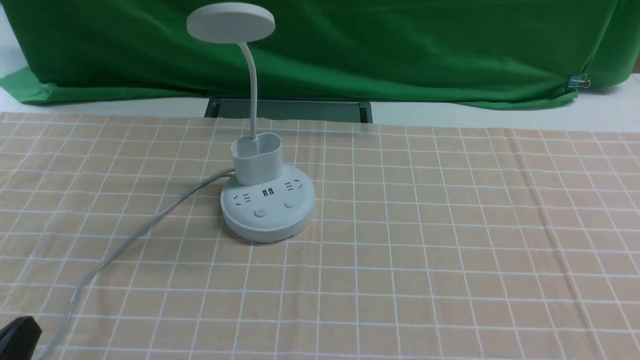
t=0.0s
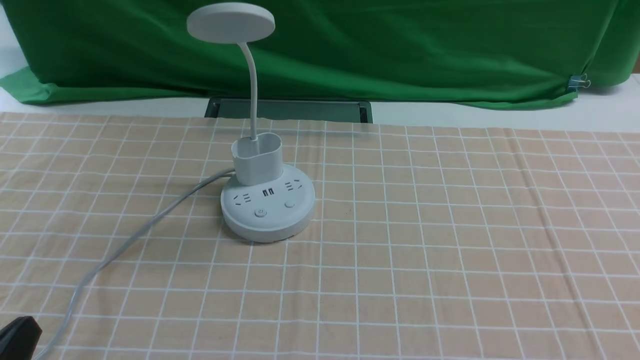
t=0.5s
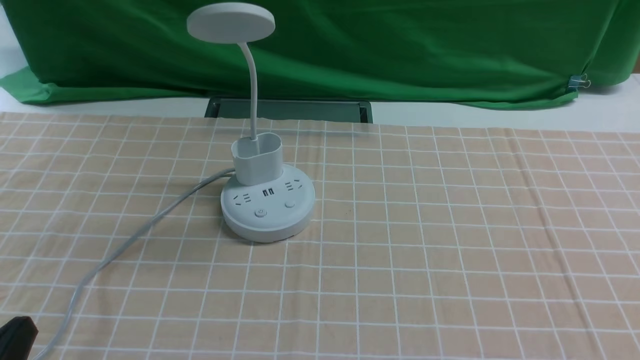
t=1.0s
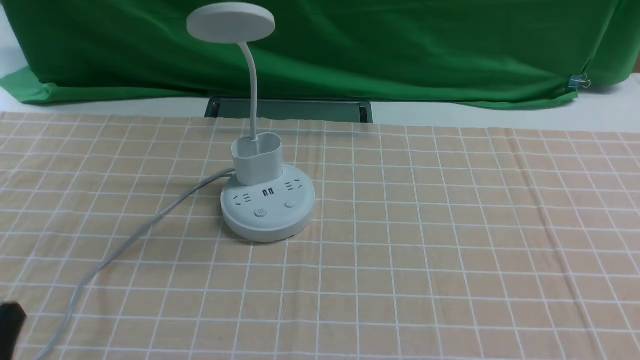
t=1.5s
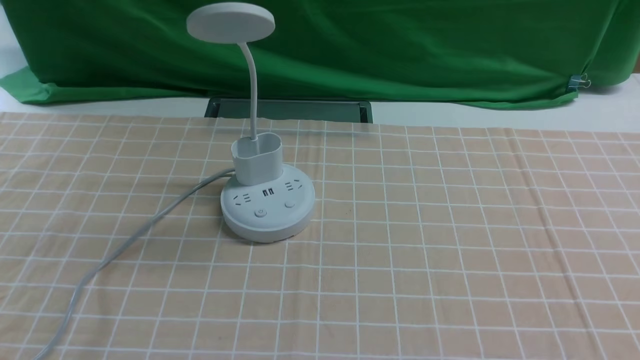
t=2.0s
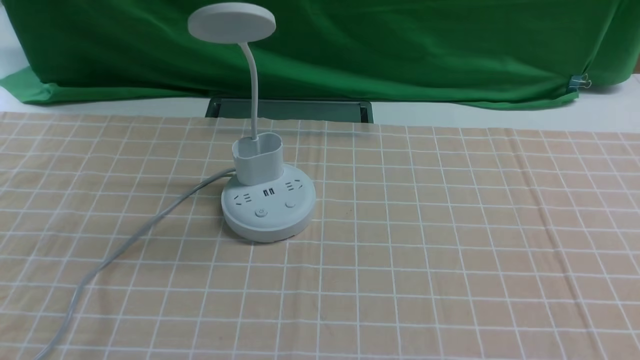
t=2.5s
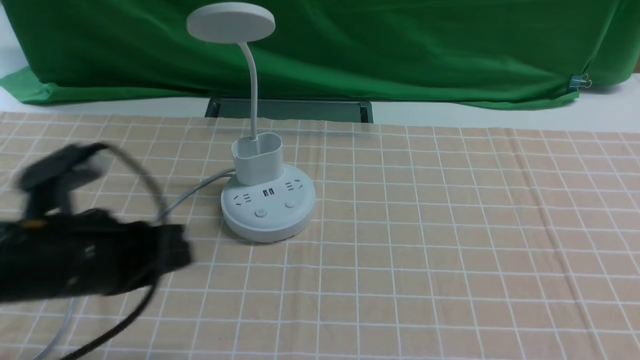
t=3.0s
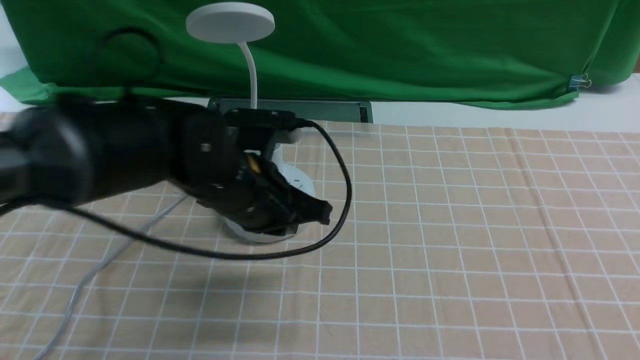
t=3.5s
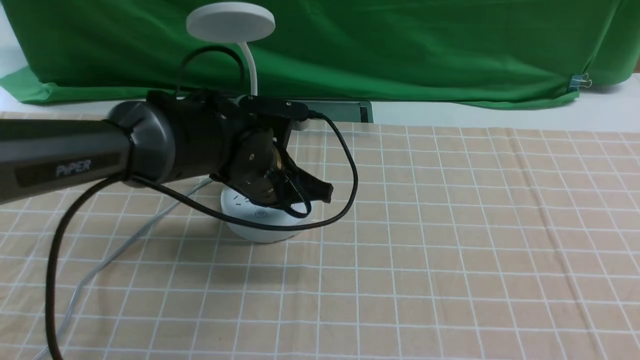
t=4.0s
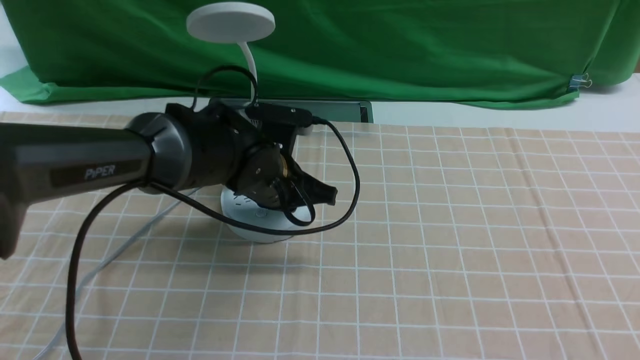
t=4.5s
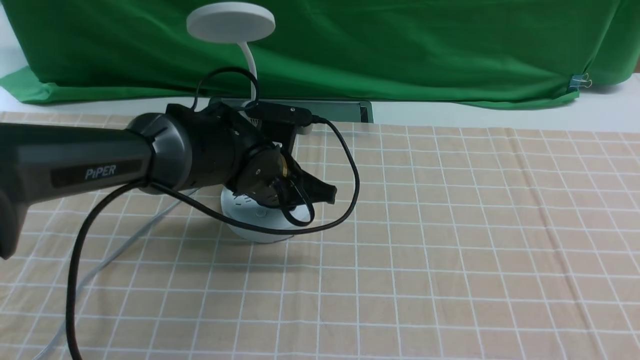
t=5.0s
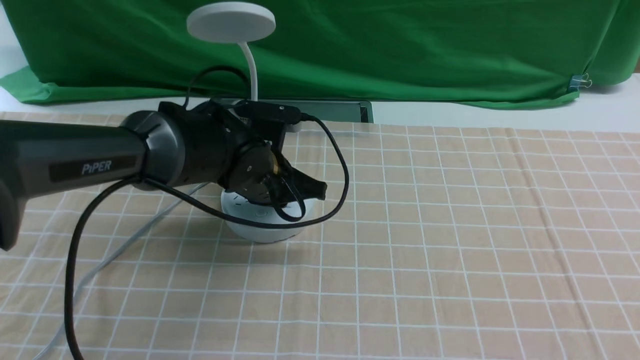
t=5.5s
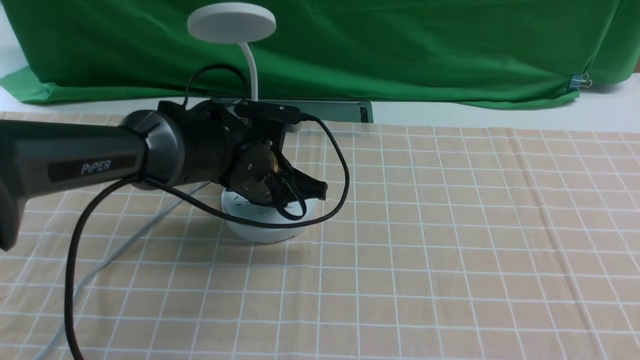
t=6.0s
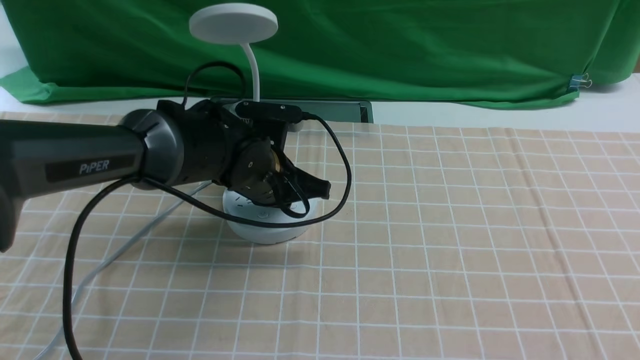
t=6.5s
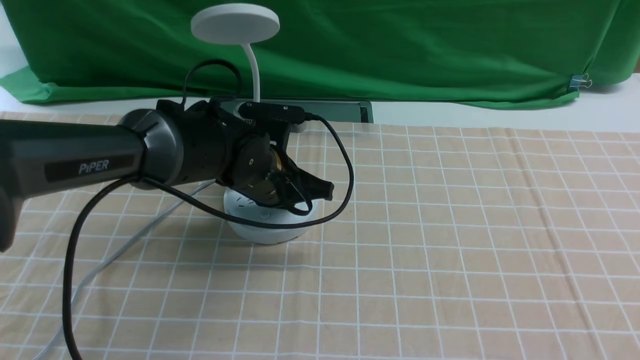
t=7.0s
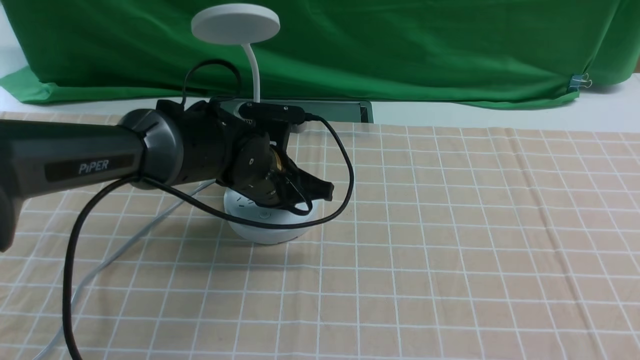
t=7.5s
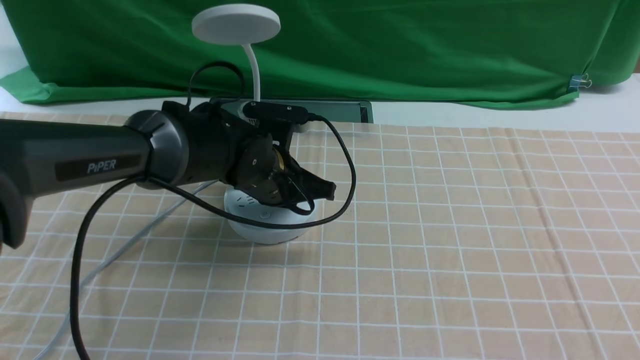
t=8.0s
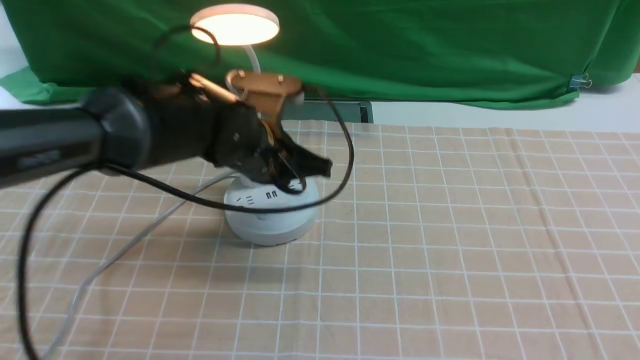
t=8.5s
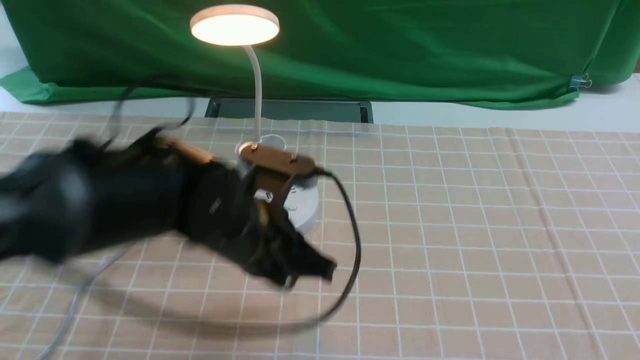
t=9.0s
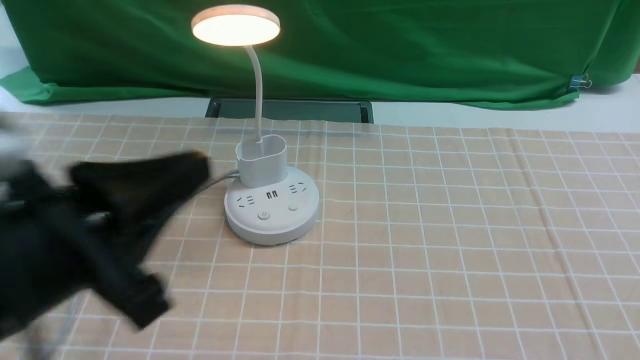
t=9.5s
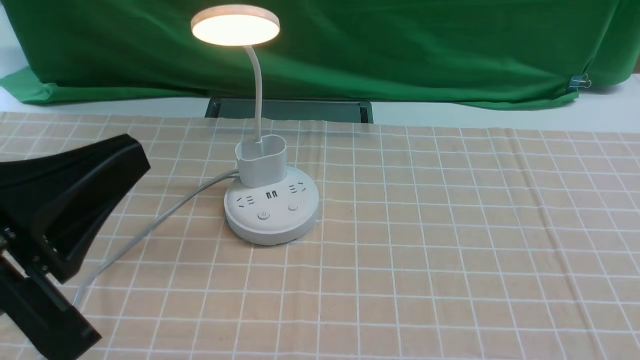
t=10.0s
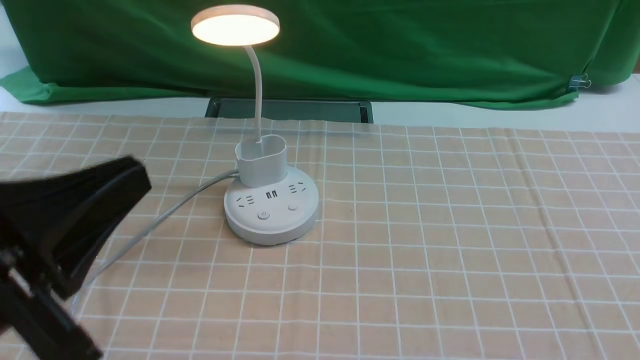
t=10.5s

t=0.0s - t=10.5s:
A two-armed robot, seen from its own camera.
Step, t=0.0s - t=8.5s: use the left arm to press the button switch on the lamp holder.
t=2.0s - t=4.0s: The left gripper shifts approximately 35 cm forward and to the right.
t=4.0s - t=8.5s: The grippers stay close to where they were, moving slightly.
t=8.5s - t=10.5s: The left gripper heads backward, upward and to the left, covering some 35 cm.

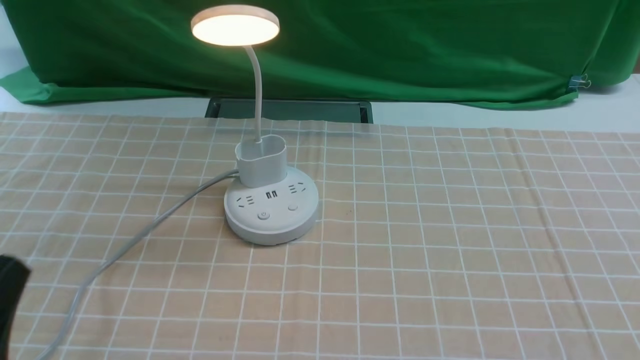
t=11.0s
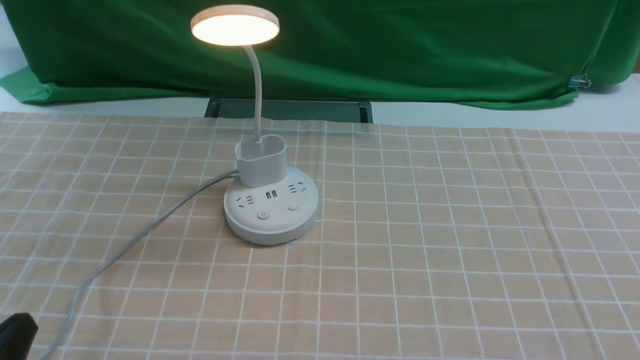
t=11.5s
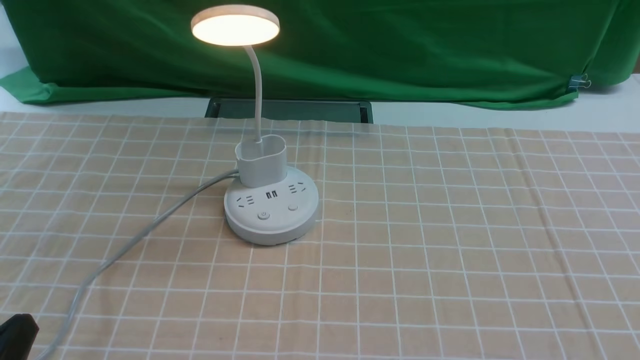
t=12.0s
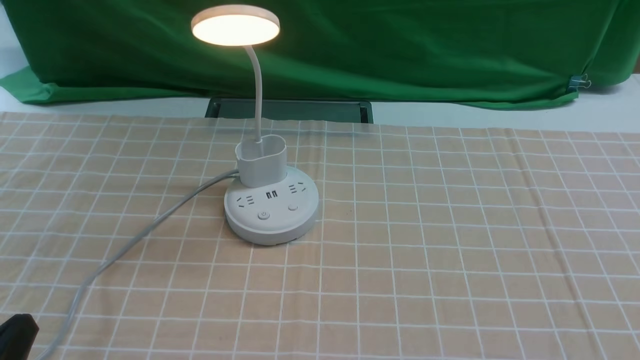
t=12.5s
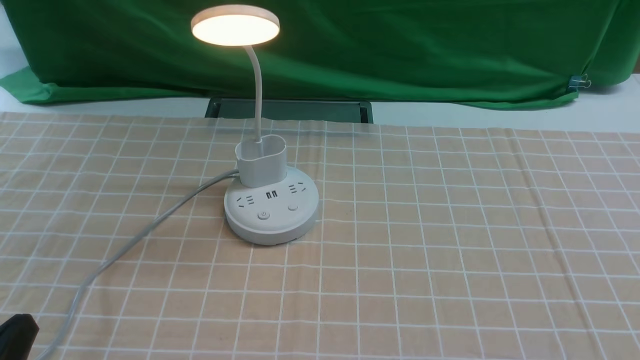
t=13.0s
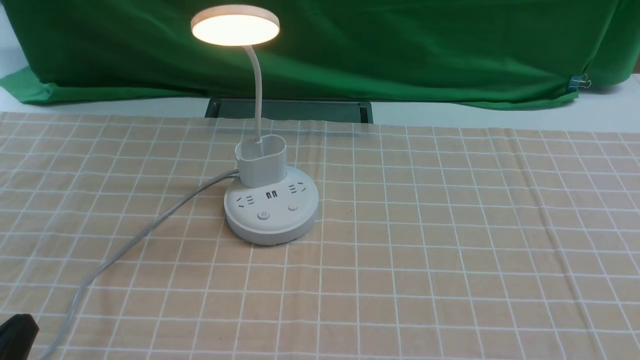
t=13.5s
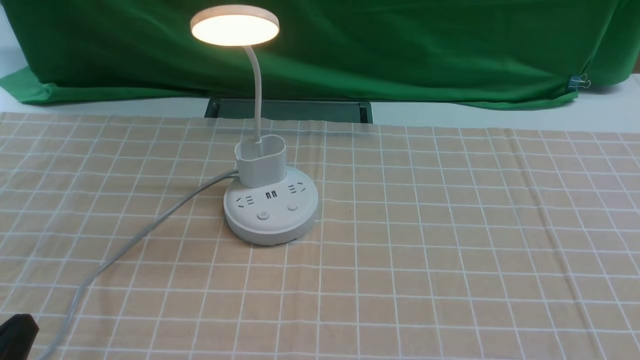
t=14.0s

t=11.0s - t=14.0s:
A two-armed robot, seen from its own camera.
t=11.0s - t=12.5s: The left gripper travels downward by roughly 5 cm.
t=12.5s - t=14.0s: Both grippers stay about where they are.
